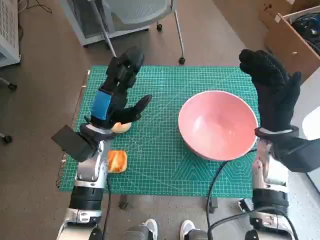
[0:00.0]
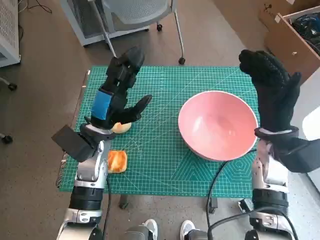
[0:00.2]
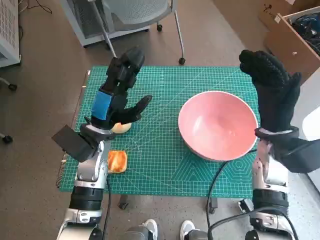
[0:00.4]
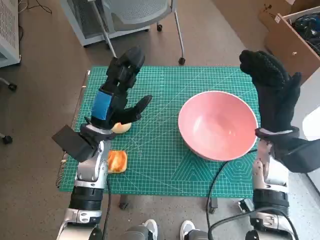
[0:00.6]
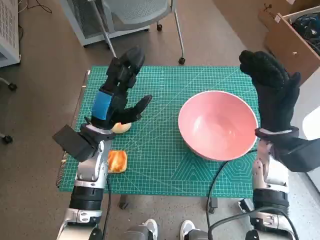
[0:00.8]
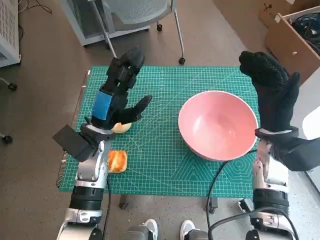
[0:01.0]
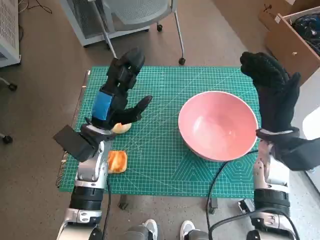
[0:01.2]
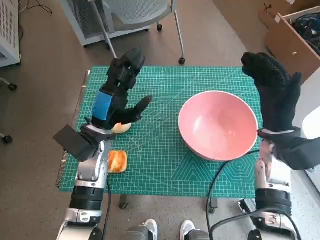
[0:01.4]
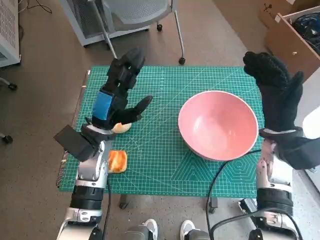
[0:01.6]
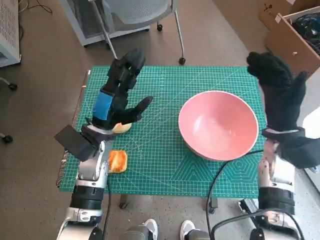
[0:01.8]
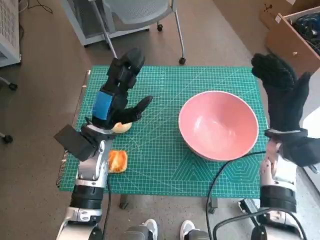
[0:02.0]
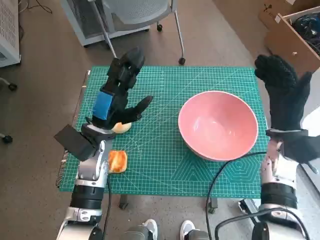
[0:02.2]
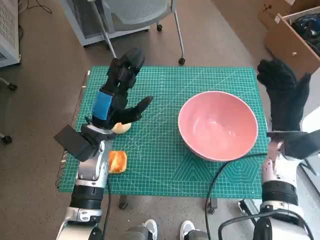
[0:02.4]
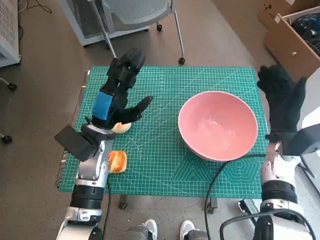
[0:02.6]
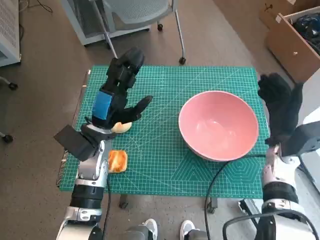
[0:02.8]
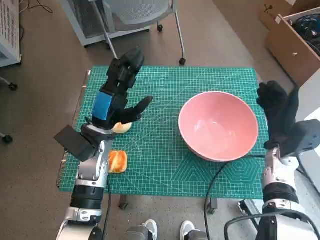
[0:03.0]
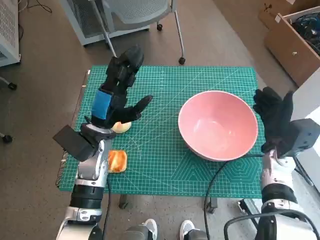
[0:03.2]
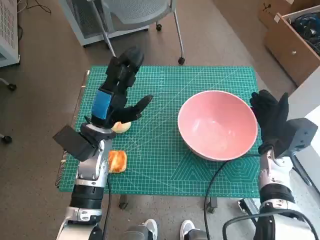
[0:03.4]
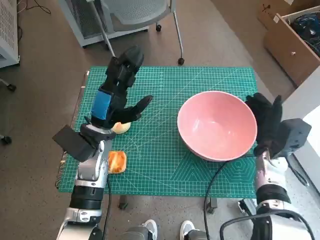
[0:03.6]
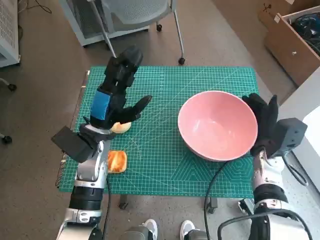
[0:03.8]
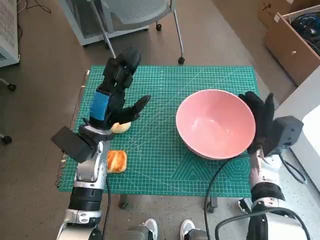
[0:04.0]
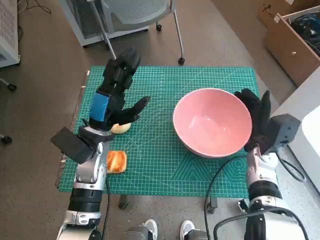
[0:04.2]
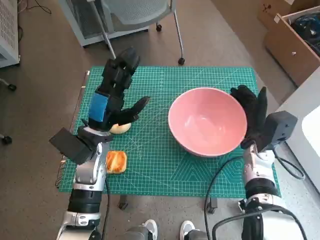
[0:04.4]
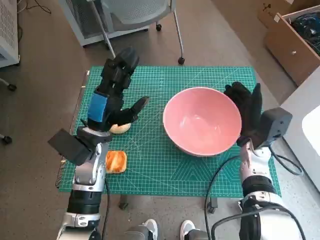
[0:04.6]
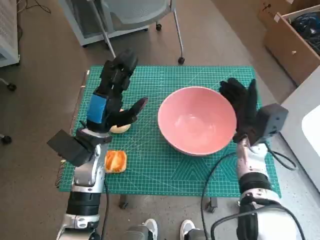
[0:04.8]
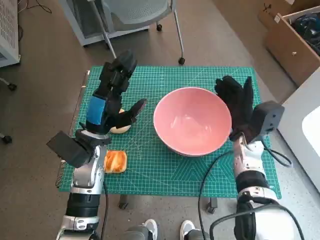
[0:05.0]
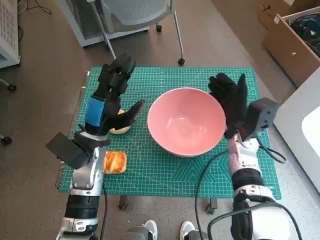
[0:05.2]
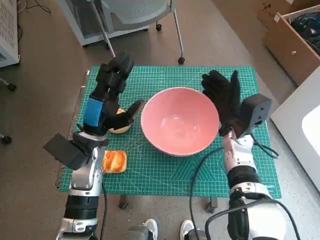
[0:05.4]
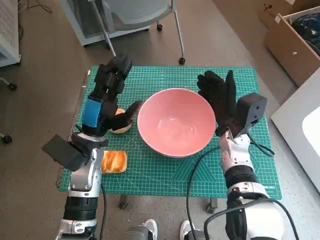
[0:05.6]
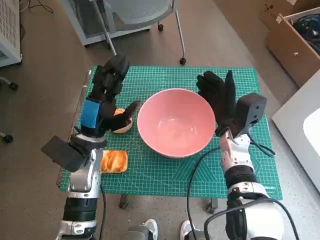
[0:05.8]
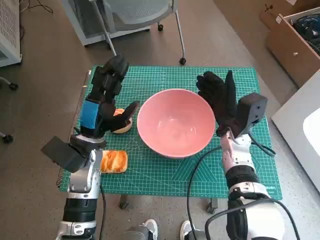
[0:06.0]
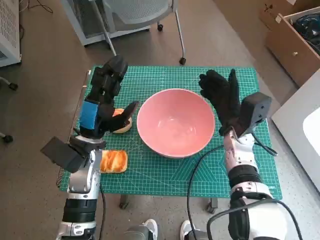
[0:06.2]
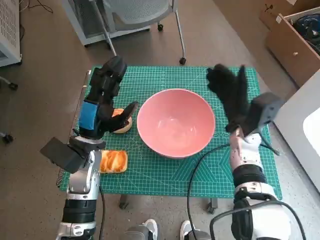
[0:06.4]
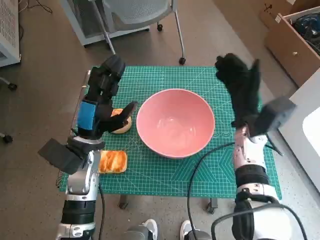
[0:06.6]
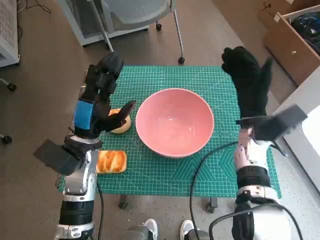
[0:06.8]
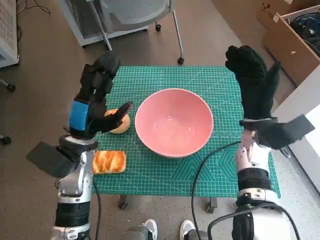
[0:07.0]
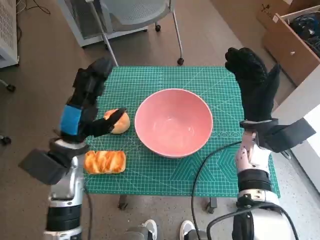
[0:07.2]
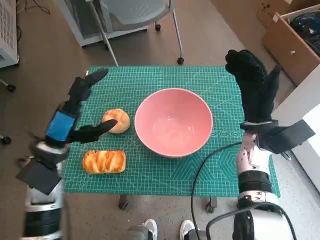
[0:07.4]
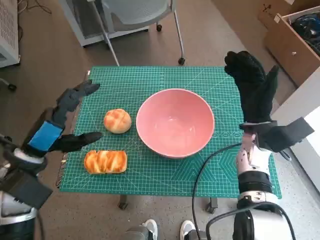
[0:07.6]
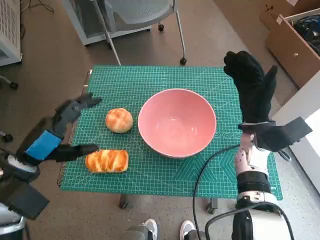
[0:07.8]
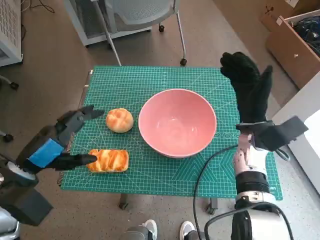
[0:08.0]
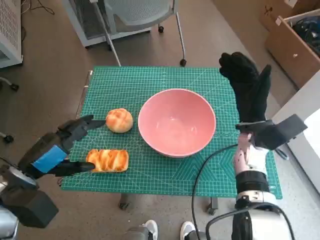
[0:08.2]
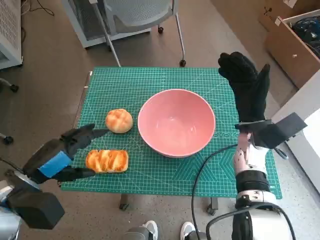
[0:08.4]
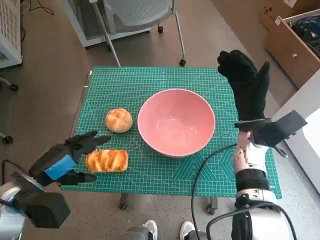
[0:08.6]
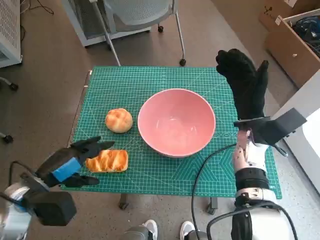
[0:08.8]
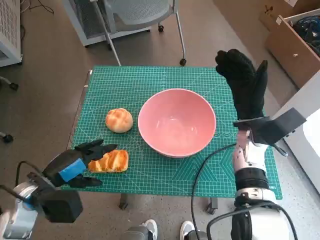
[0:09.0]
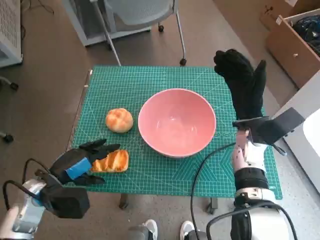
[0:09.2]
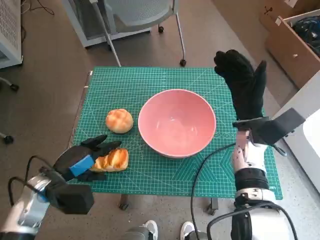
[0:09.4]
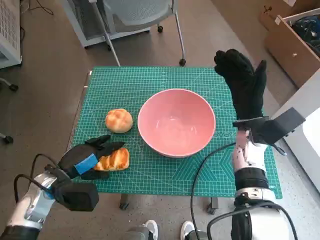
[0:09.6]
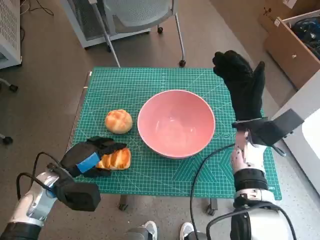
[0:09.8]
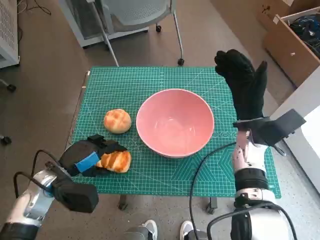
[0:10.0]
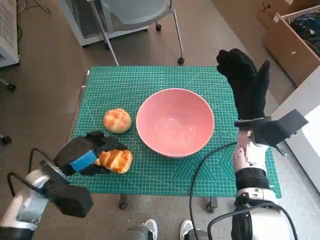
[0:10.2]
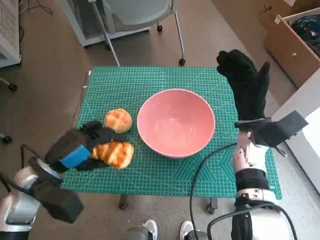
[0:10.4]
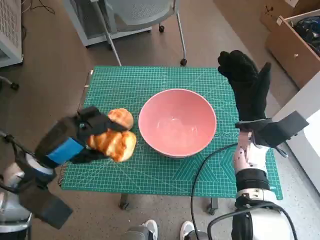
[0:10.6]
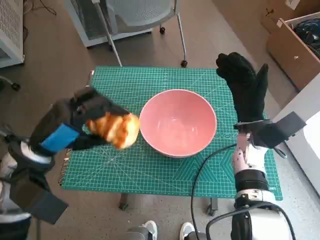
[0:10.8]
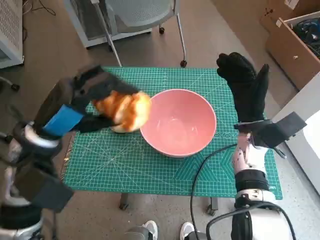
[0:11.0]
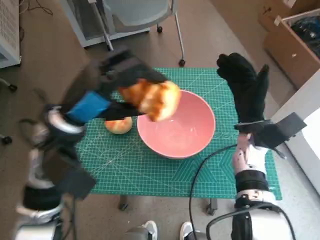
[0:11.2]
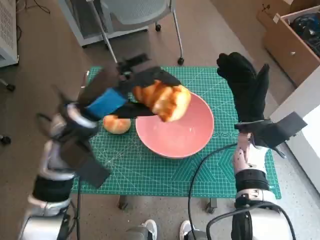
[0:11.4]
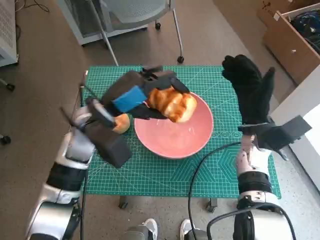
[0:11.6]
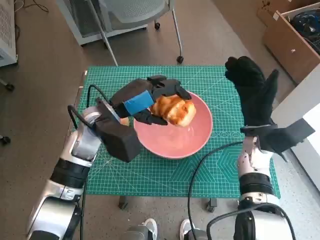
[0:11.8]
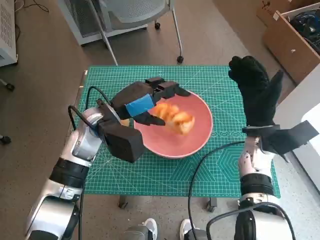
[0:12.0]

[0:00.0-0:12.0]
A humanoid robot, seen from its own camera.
Step, 0:00.0 to 0:06.2: Move the pink bowl to the center of table with right hand.
Step, 0:06.4 to 0:09.8: Grasp the long bread with left hand.
0:01.6 to 0:03.0: The right hand is displaced downward by some 5 cm.
0:03.0 to 0:04.4: There are only small adjustments of the hands.
0:04.4 to 0:06.0: The right hand goes about 5 cm to the left.
0:06.0 to 0:07.6: The left hand travels to the left by some 10 cm. The right hand shifts by about 5 cm.
0:07.6 to 0:09.0: The left hand heads downward, covering some 5 cm.
0:09.0 to 0:10.4: The hands stay close to where they were, moving slightly.
0:10.4 to 0:12.0: The left hand travels to the right and forward by roughly 15 cm.

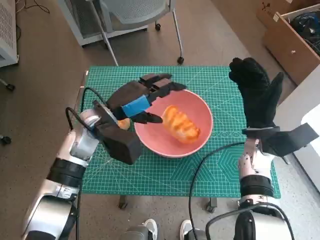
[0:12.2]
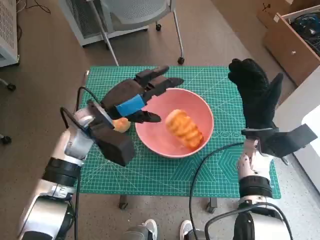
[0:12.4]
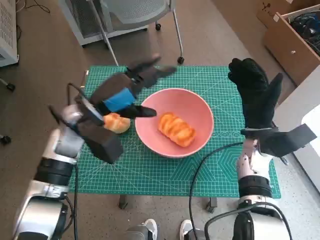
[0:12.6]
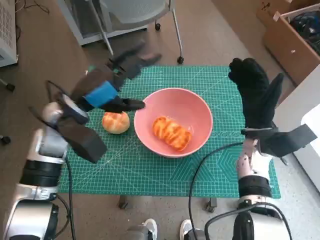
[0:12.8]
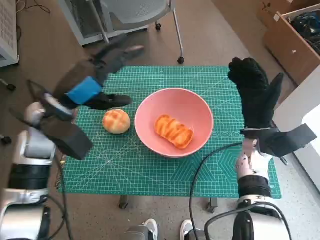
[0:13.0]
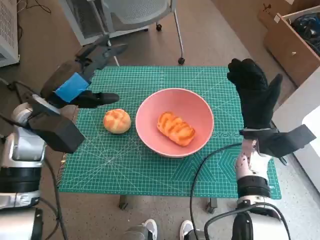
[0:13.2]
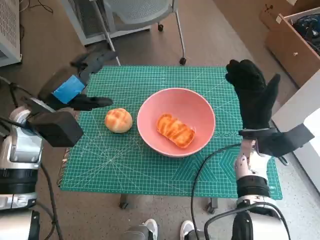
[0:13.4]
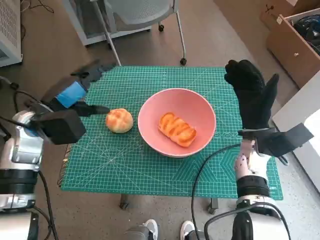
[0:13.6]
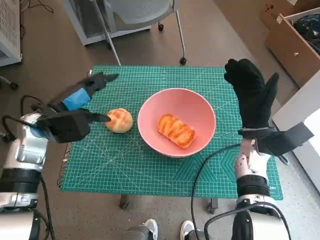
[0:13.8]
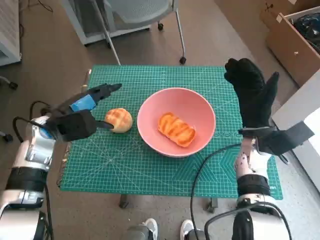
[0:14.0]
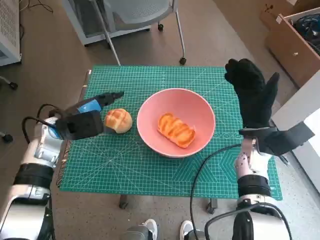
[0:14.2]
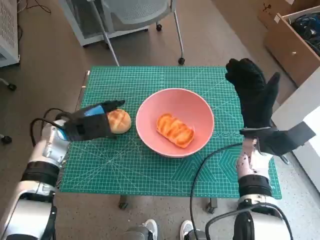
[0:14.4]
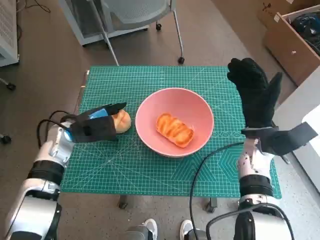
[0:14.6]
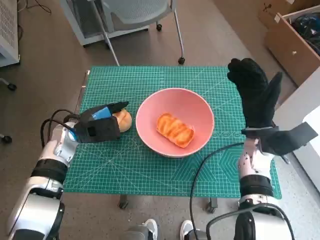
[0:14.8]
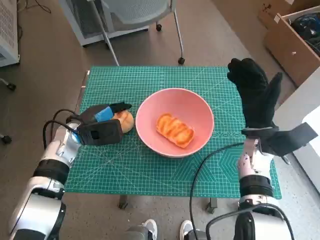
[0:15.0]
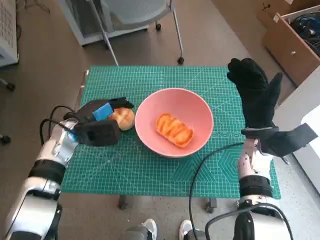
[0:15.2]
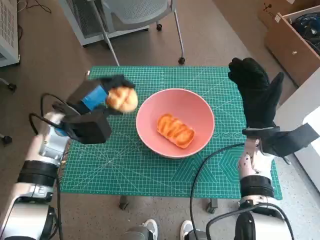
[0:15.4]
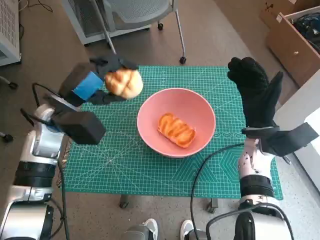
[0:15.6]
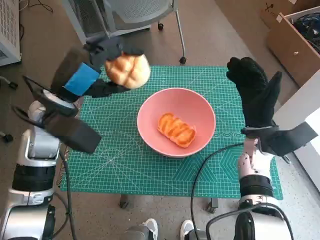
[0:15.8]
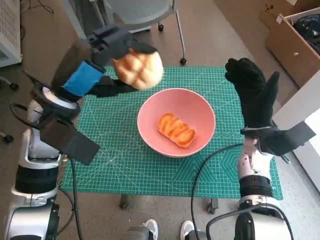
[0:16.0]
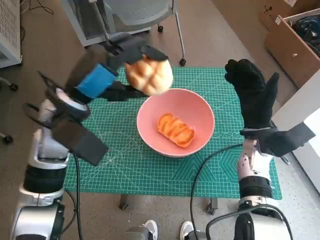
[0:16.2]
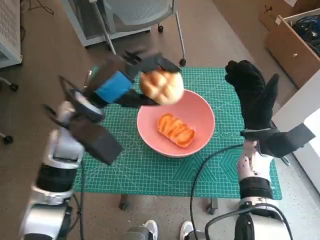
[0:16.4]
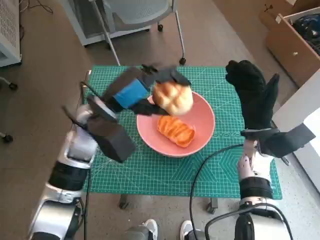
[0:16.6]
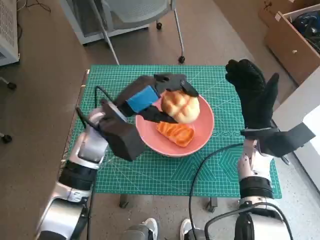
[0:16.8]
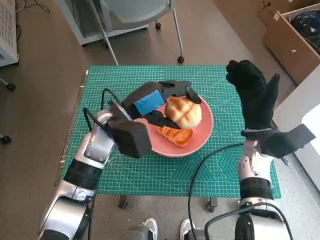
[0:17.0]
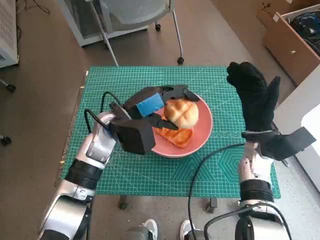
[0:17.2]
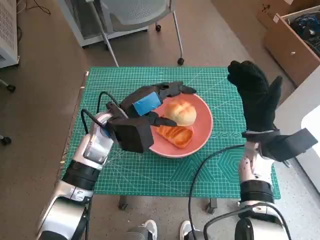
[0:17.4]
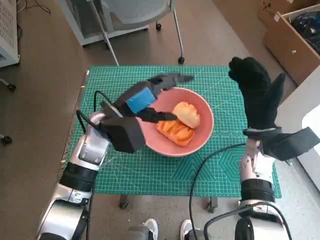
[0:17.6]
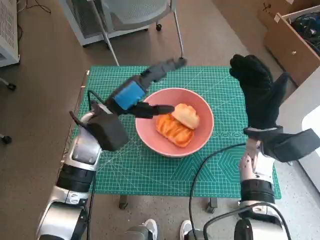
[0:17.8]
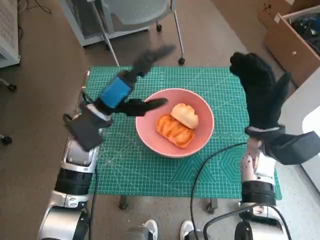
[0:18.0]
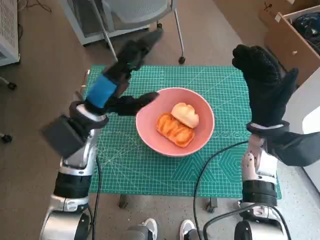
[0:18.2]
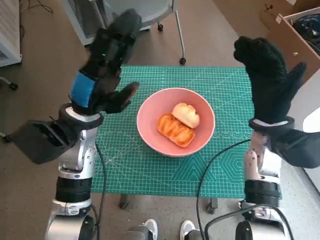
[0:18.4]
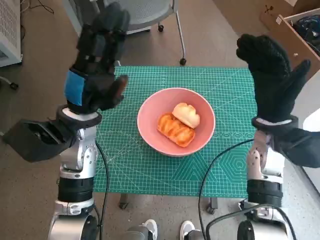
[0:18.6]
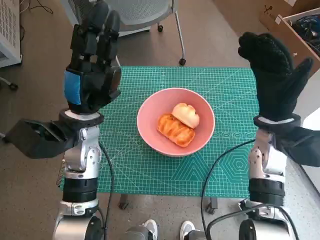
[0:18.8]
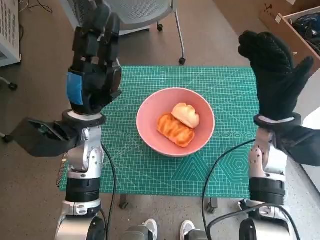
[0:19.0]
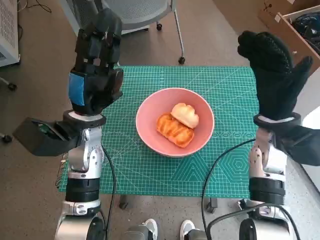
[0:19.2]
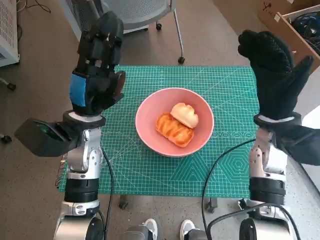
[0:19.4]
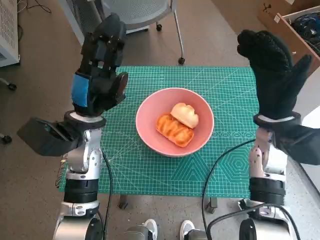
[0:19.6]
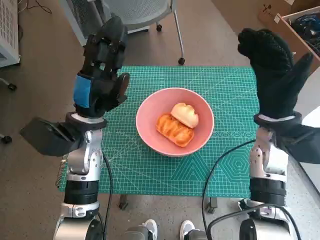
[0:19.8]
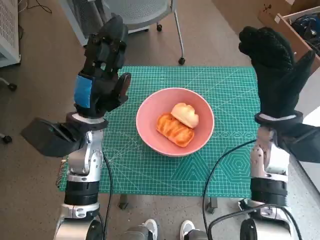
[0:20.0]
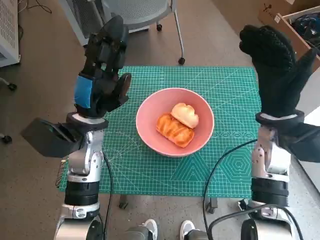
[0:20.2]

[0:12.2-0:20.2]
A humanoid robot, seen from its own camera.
Step, 0:12.2 to 0:15.0: Grasp the round bread with left hand.
Step, 0:15.2 to 0:17.4: Place the round bread in pink bowl with left hand.
0:12.2 to 0:13.8: The left hand goes roughly 10 cm to the left.
0:15.4 to 0:17.0: The left hand is displaced to the right by some 10 cm.
0:17.0 to 0:18.6: The left hand ends up roughly 5 cm from where it was. Meanwhile the right hand travels upward by about 5 cm.

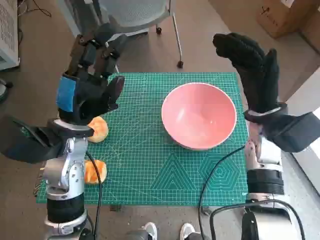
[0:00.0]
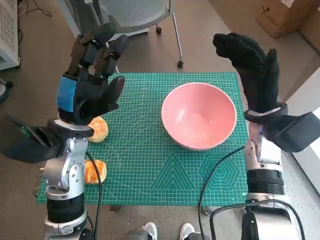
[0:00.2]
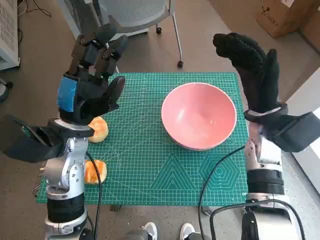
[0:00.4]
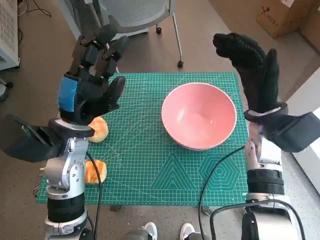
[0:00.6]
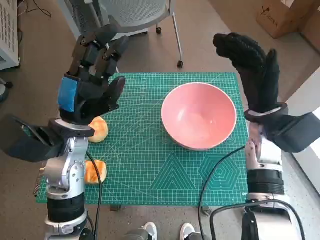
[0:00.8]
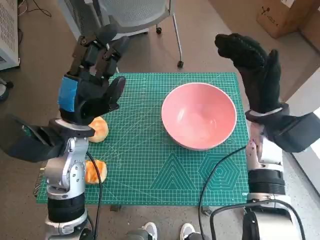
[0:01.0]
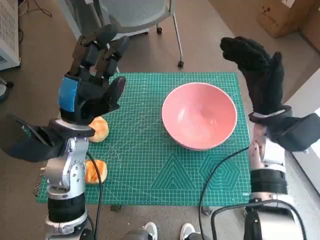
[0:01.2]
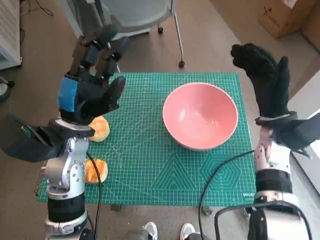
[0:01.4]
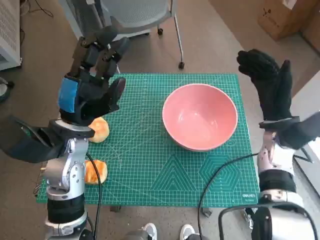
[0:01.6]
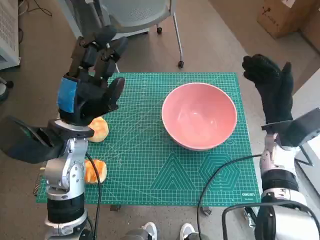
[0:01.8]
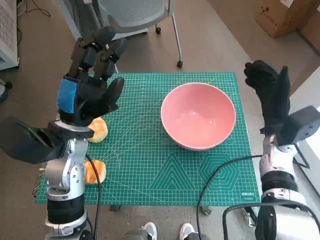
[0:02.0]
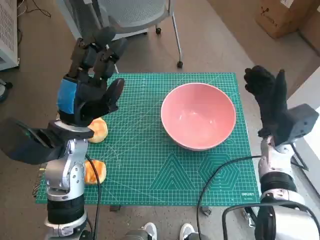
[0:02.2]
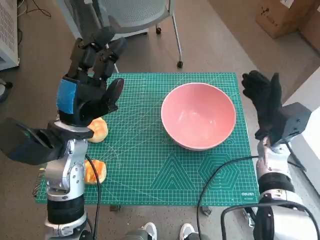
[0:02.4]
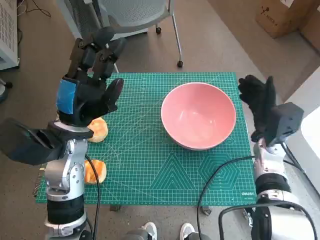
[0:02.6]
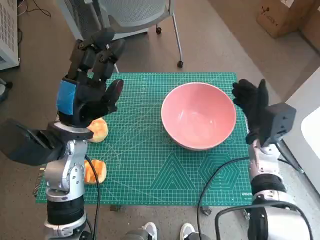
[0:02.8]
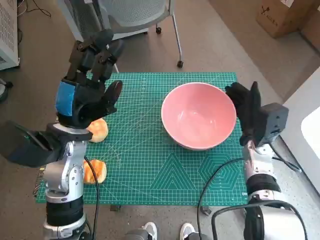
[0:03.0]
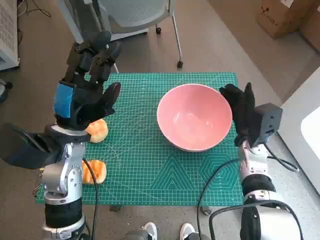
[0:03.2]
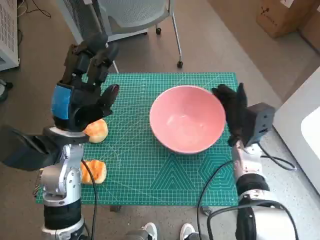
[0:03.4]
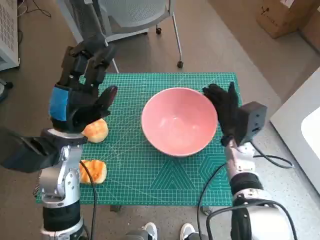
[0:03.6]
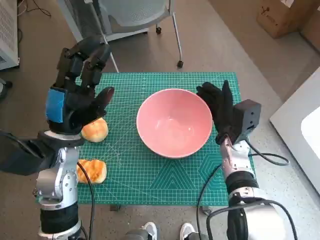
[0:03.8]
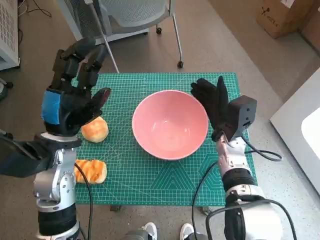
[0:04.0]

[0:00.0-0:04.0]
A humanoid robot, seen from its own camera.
0:01.4 to 0:02.6: The right hand moves downward, approximately 5 cm.
0:02.6 to 0:04.0: The right hand heads to the left, covering about 10 cm.
